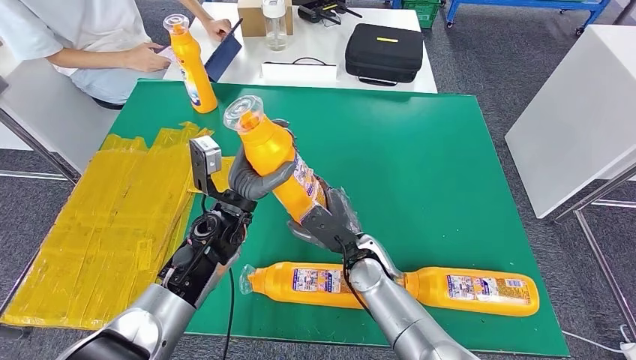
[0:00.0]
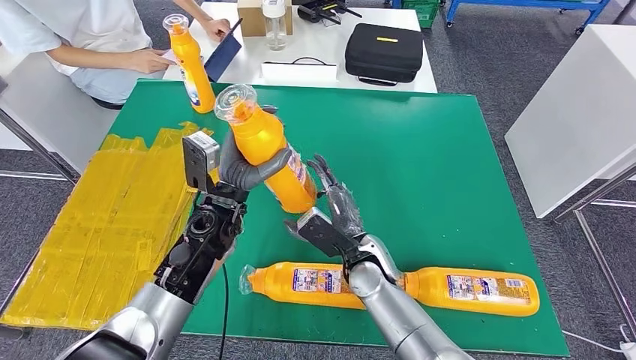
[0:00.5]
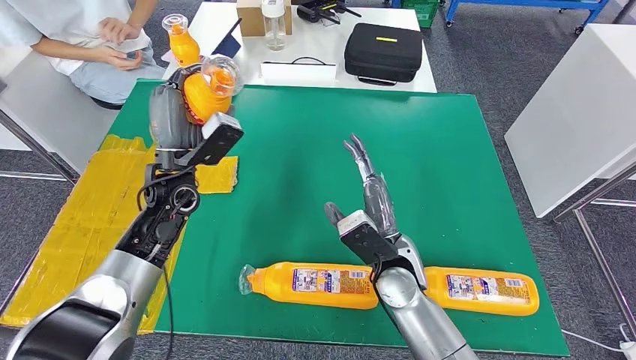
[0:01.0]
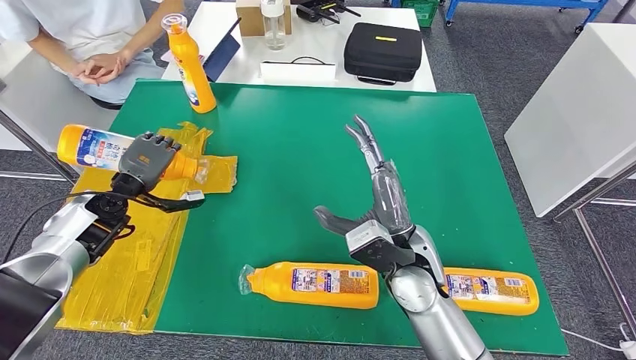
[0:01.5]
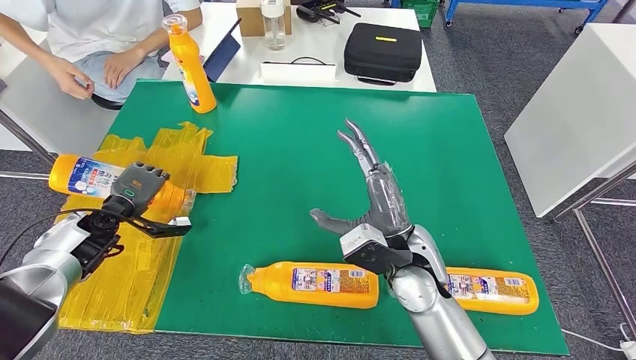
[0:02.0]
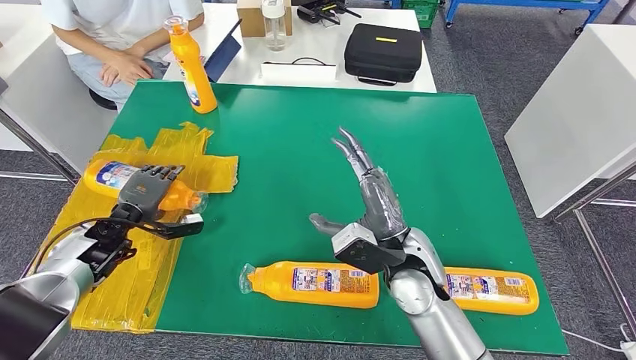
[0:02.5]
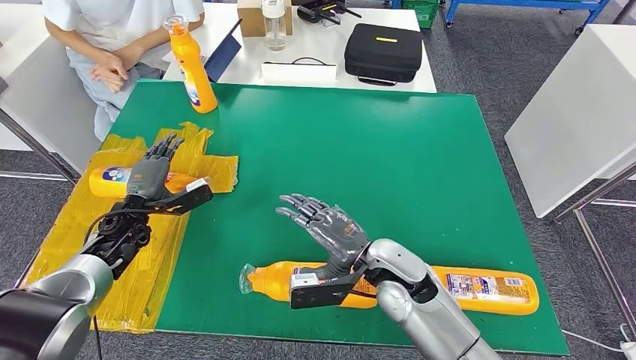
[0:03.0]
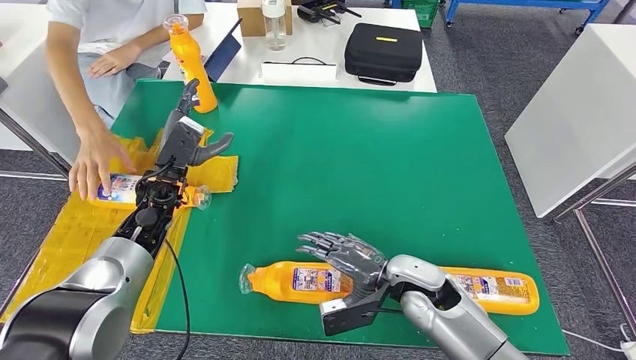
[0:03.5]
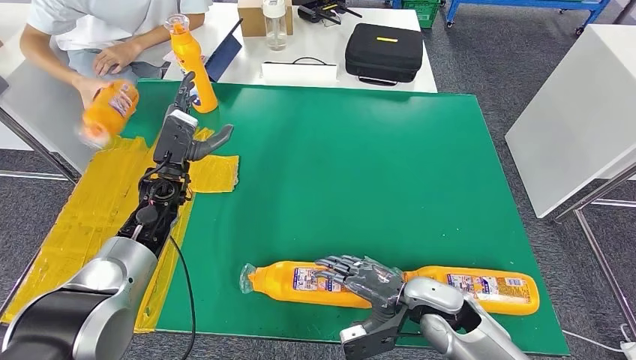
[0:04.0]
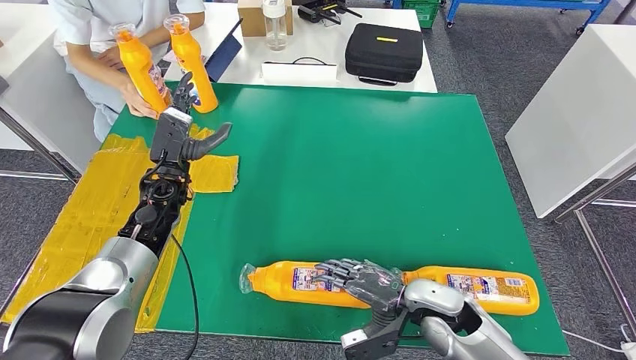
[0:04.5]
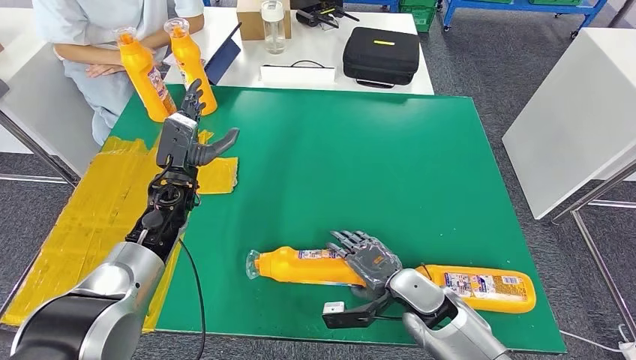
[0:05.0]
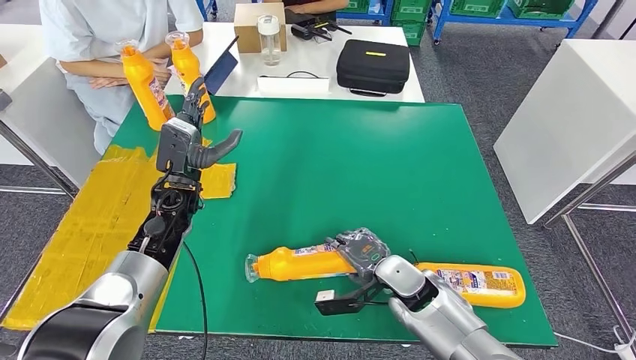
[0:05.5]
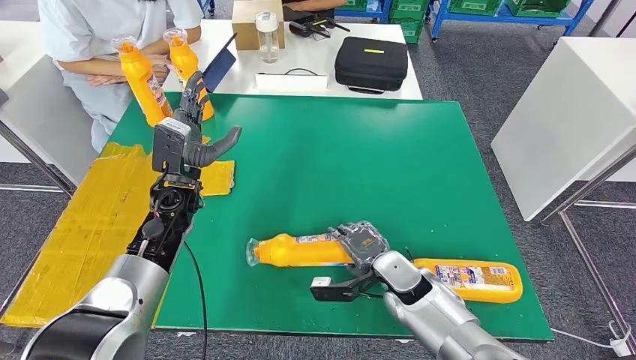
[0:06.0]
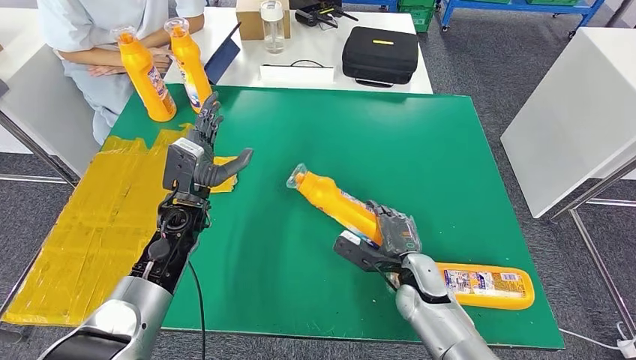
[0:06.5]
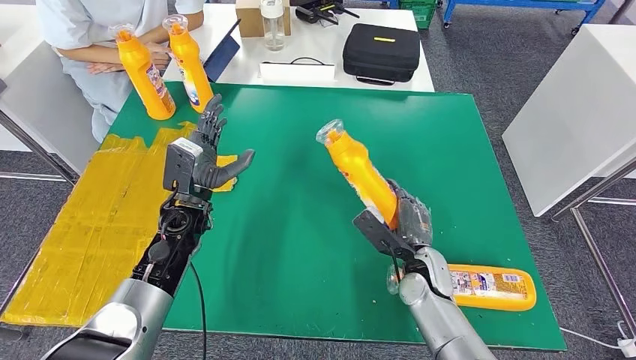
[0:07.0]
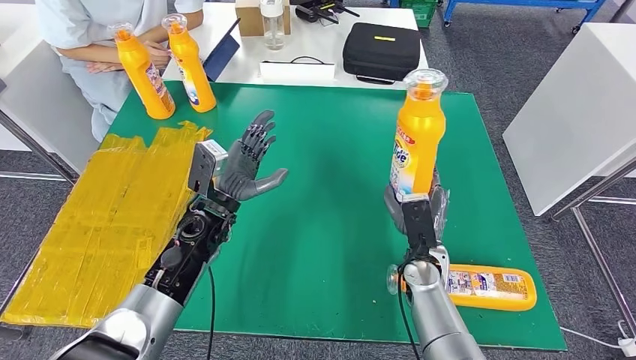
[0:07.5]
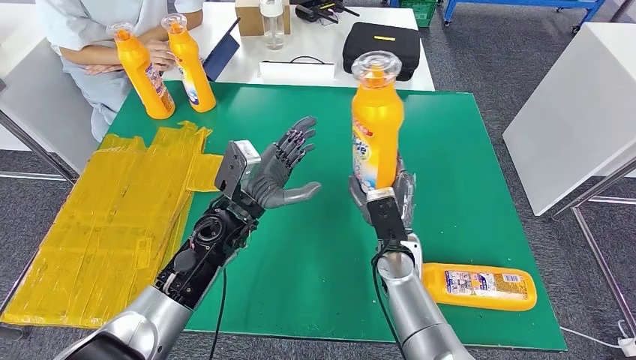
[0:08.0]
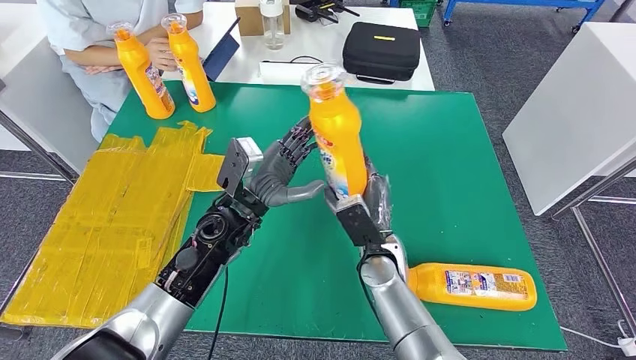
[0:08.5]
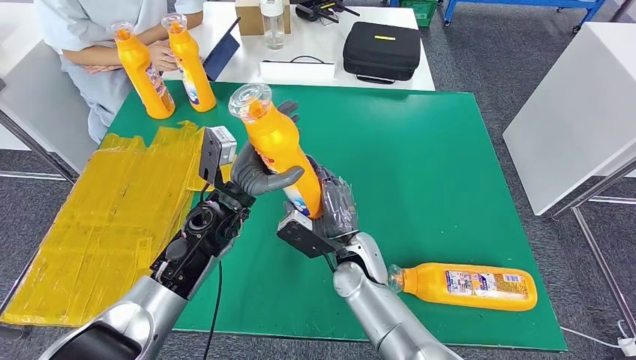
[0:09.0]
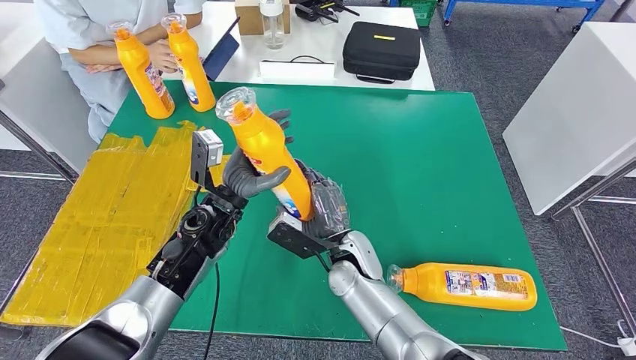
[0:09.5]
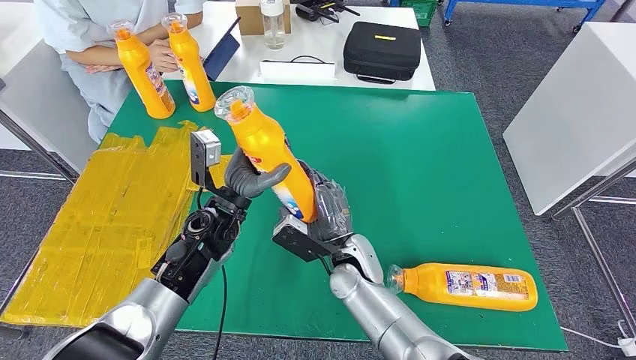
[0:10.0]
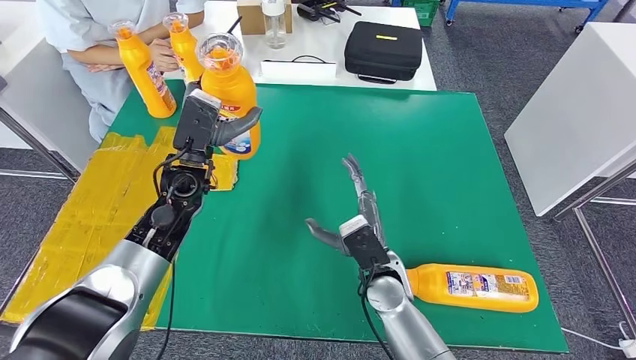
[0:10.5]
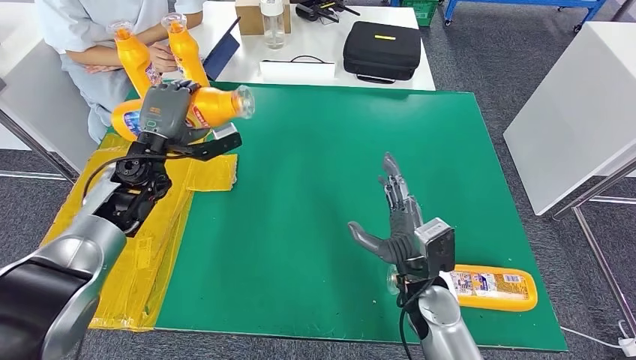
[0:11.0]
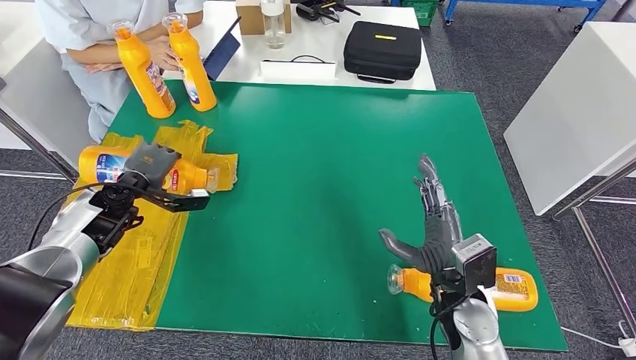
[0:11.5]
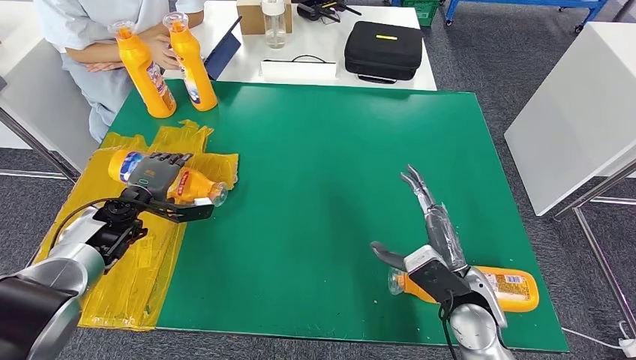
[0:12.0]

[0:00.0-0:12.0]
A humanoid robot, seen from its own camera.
Step, 0:00.5 to 0:03.5: Flip the fast-moving consumer goods bottle to the front side.
Step, 0:04.0 to 0:09.5: Pick up the fast-moving consumer goods bottle from the table.
0:08.0 to 0:10.0: The right hand travels to the left by some 10 cm.

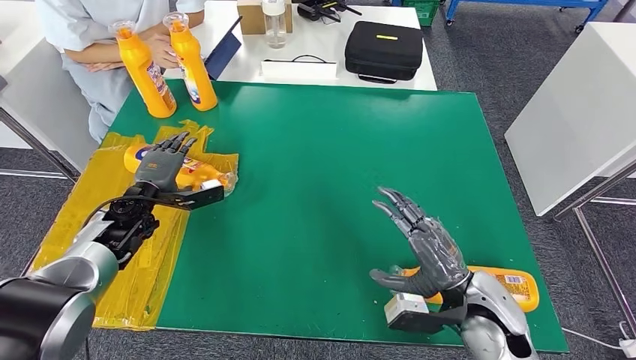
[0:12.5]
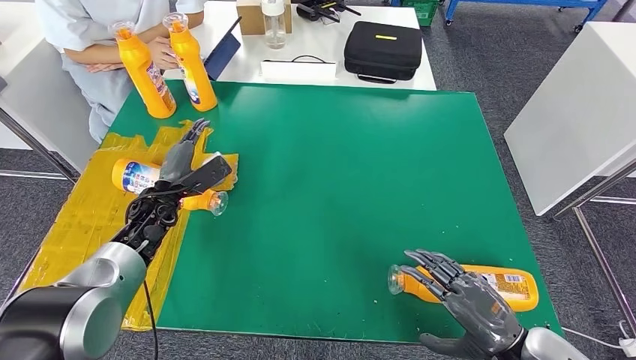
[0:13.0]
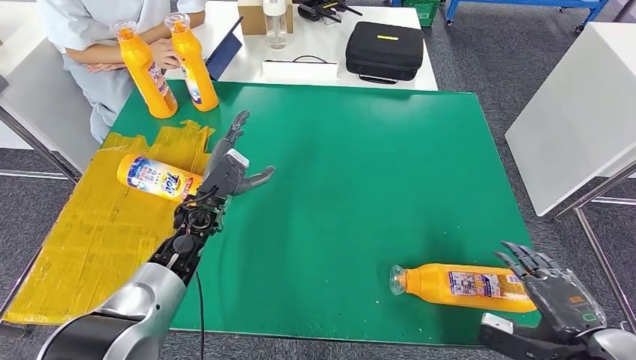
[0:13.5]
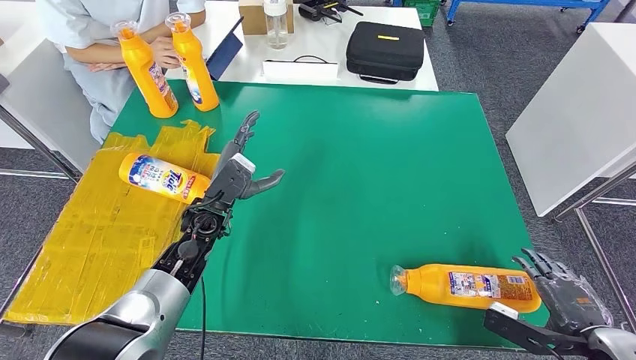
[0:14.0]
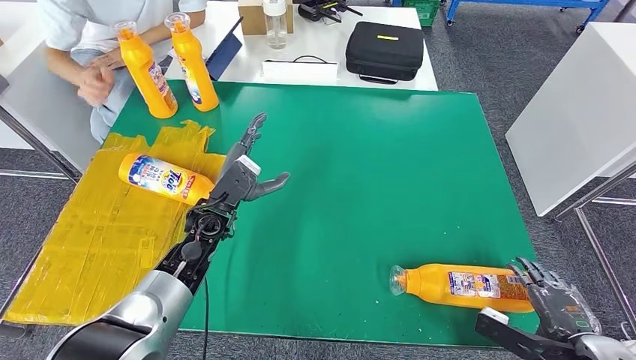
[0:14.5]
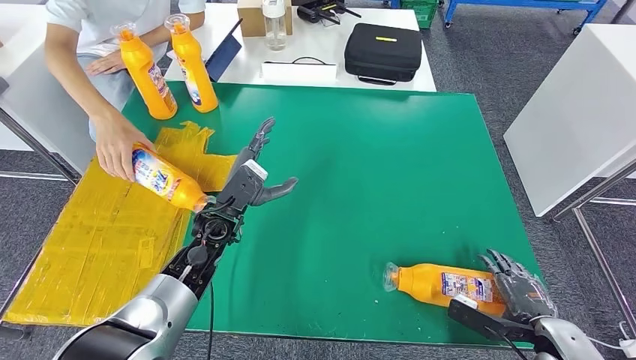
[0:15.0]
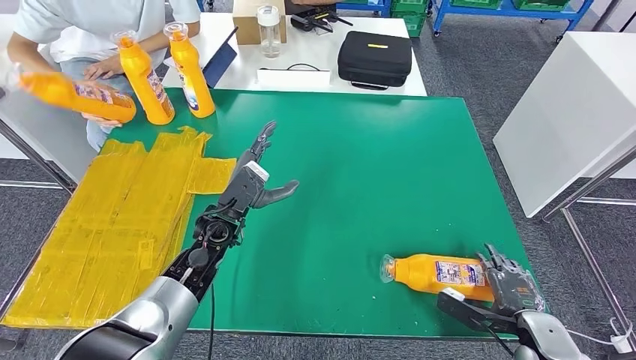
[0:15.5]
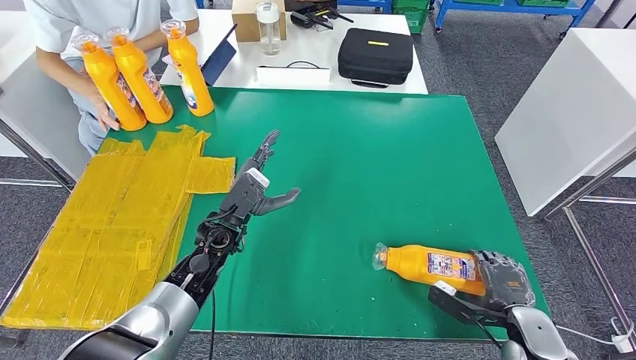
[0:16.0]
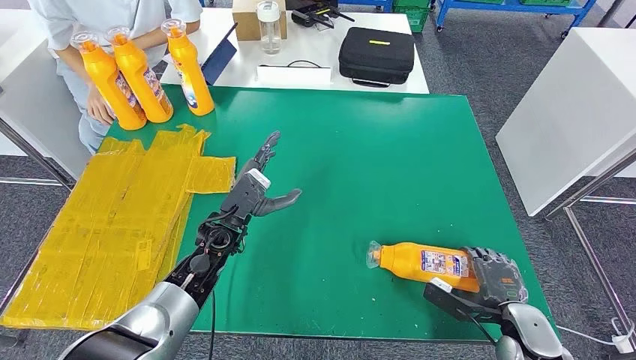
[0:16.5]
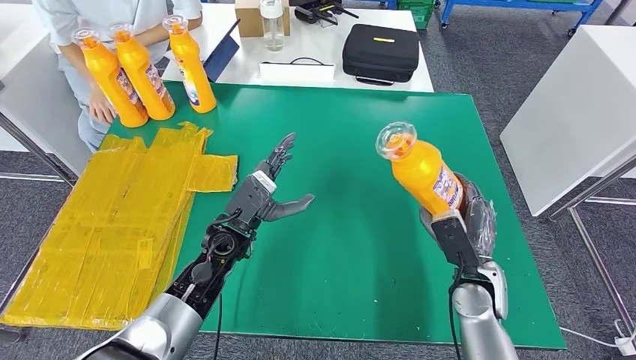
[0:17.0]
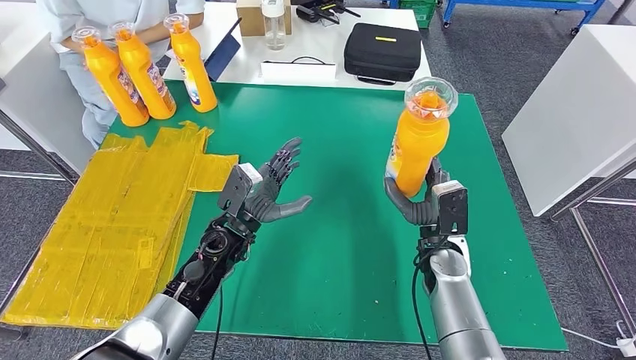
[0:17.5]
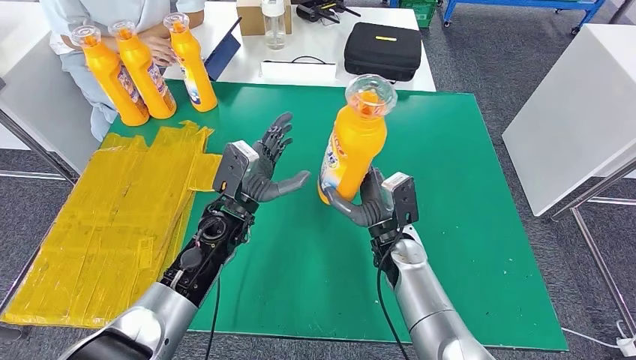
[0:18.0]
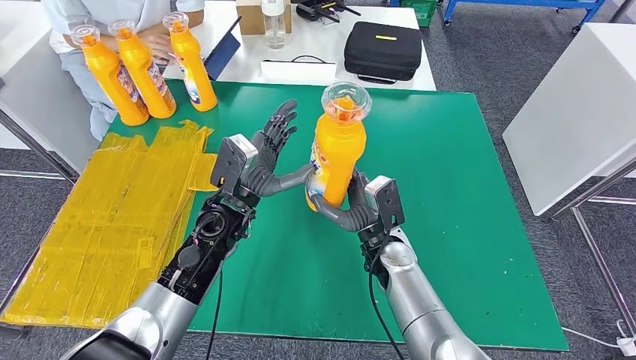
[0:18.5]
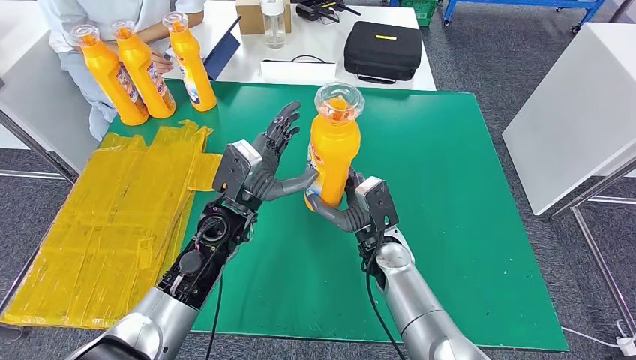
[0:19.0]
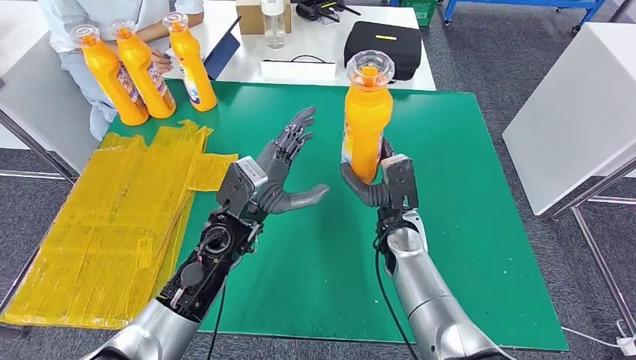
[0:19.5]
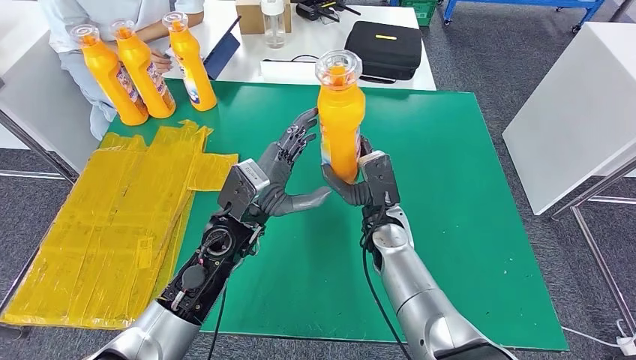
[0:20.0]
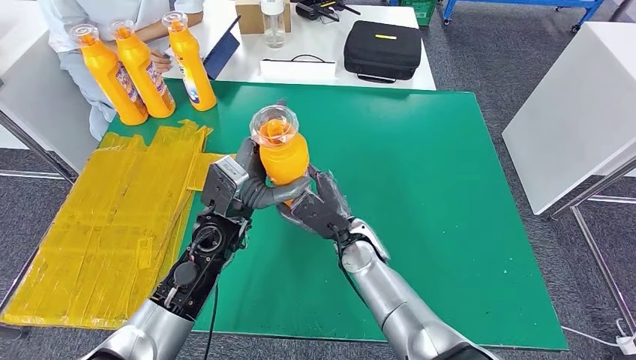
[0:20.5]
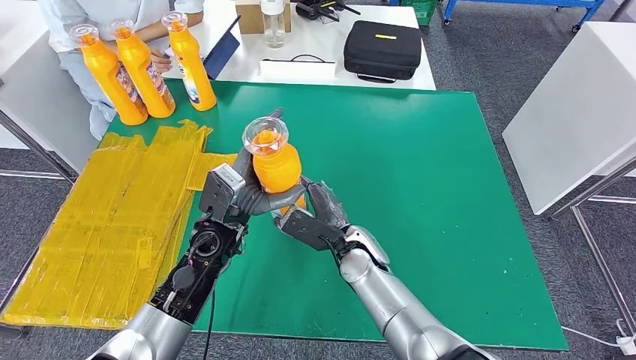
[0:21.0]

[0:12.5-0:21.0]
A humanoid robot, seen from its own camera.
Step, 0:13.5 to 0:19.5: Pick up the fast-moving consumer goods bottle from the table.
0:19.0 to 0:21.0: The right hand travels to the left by roughly 5 cm.
